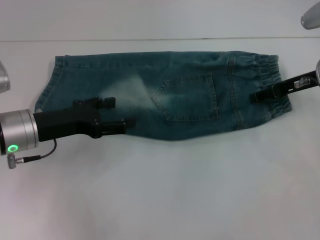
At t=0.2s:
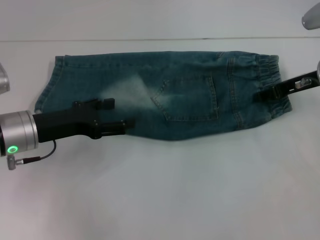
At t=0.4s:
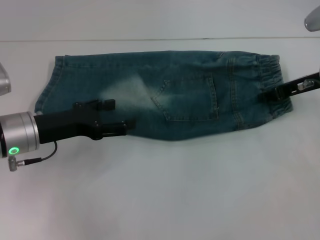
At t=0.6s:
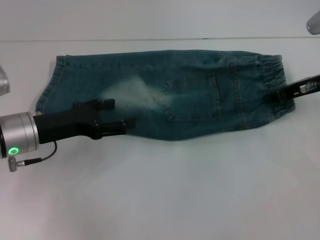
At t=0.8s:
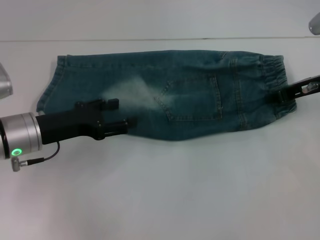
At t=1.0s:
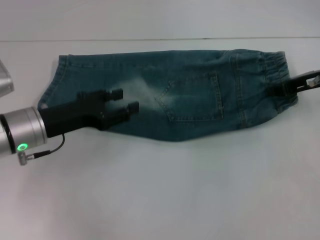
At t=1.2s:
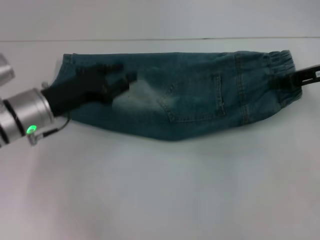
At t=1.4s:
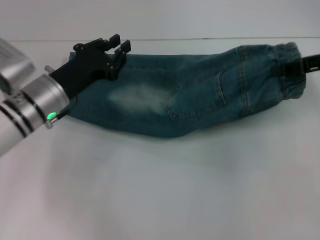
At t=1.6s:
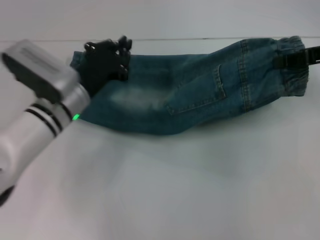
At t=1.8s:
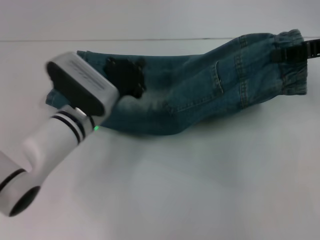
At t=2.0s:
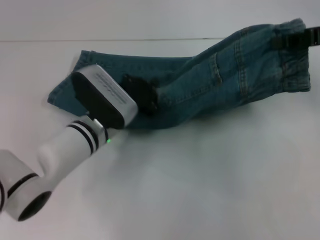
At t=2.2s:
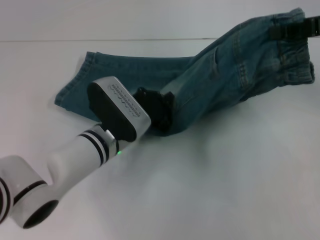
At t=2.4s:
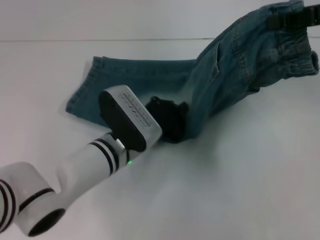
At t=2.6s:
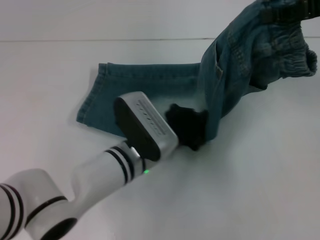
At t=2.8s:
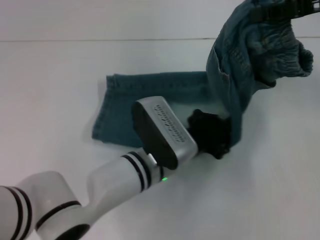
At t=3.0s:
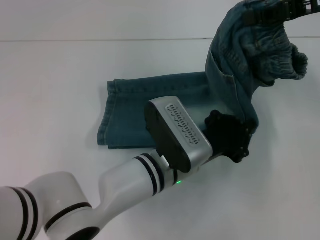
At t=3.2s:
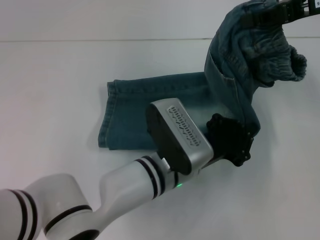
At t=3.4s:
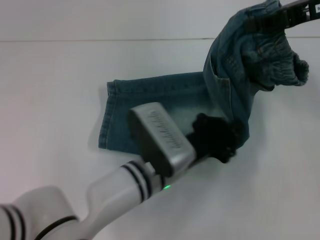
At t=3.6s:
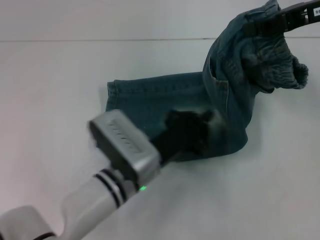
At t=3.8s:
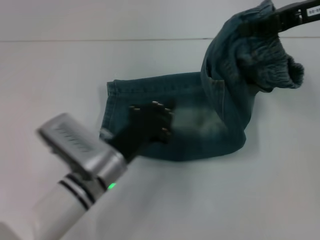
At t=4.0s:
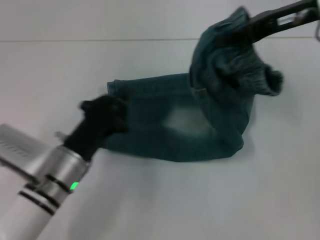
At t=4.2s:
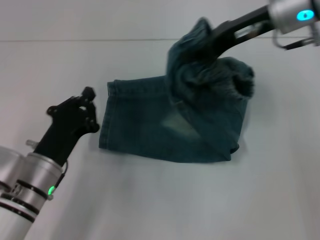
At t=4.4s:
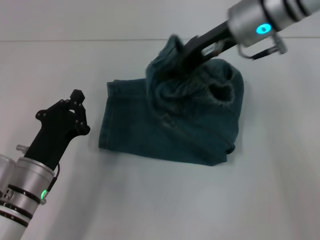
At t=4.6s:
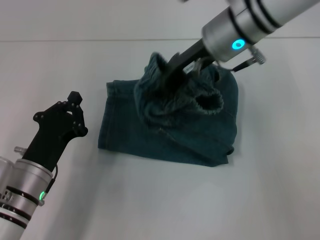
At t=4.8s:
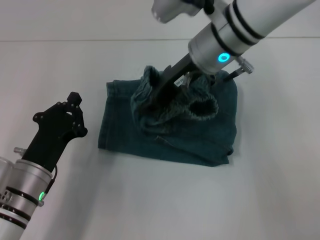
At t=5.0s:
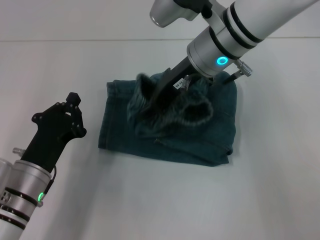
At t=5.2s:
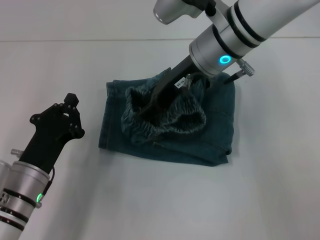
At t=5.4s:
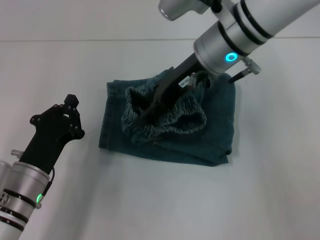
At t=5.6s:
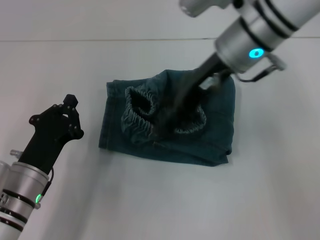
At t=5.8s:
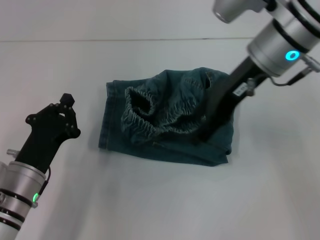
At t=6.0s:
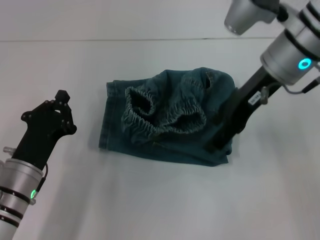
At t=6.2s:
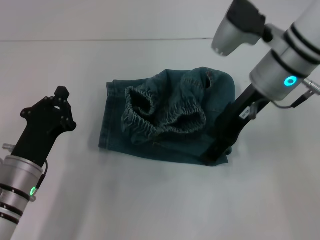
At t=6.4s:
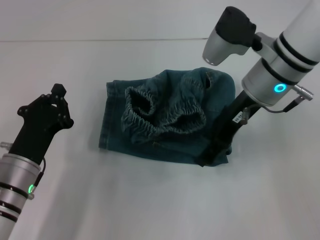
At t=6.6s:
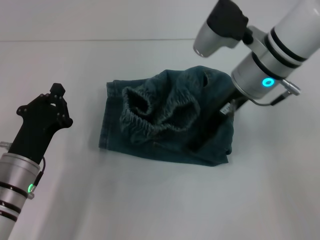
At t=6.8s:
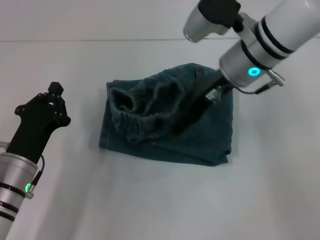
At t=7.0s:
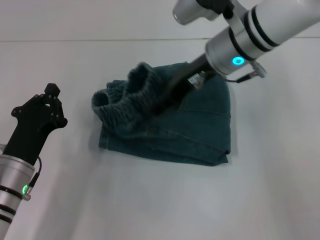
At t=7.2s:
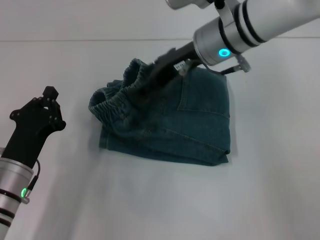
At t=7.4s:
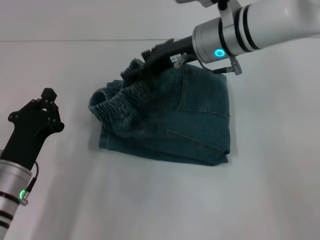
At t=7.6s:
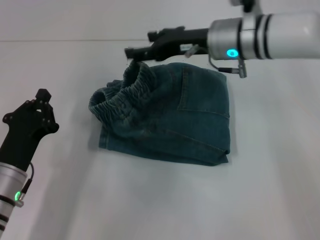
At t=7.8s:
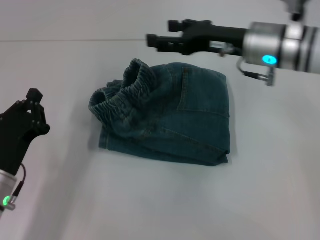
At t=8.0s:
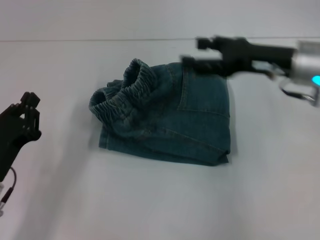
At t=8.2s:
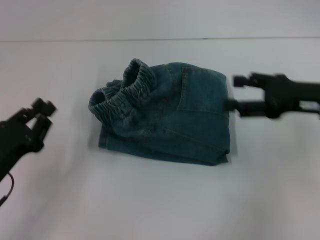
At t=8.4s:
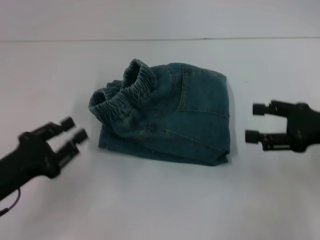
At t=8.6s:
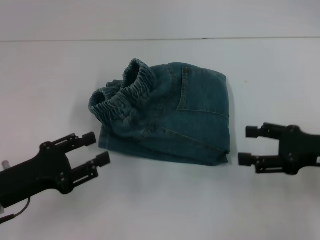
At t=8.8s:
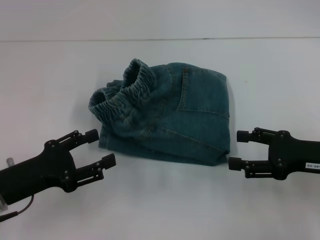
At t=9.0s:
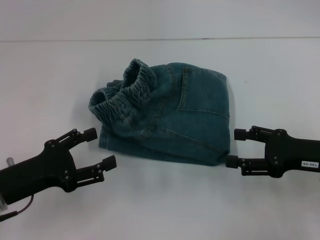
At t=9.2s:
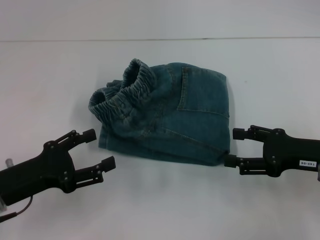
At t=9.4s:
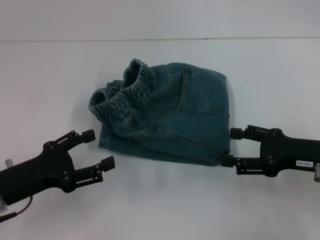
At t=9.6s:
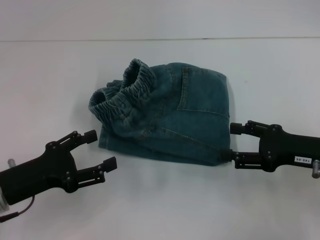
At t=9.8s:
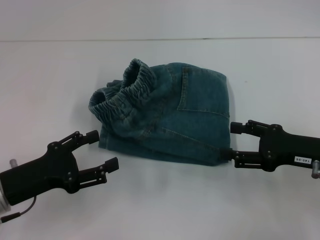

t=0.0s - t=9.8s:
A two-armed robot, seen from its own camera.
Step, t=0.4s - t=3.4s: Press the middle of the pants with your left hand.
Step, t=3.6s - t=5.4s: Fold to the left with your right hand.
Step, t=5.6s - t=7.8s: Adjust the pants with your right hand.
t=0.0s - t=1.4s: The left gripper shifts by some 5 cm, and closes, while the right gripper shifts approximately 5 cm upward, and closes up.
t=1.4s - t=2.8s: The right gripper moves upward, roughly 10 cm. The left gripper heads to the right and backward, covering about 15 cm, and closes its fingers.
t=2.8s - t=4.2s: The left gripper travels to the left by approximately 15 cm, while the right gripper shifts approximately 10 cm to the left.
t=4.2s - t=5.6s: The right gripper travels to the left by some 5 cm, and opens.
t=7.0s - t=8.4s: The right gripper is displaced to the right and backward by about 25 cm; the left gripper travels to the left by approximately 5 cm.
t=8.4s - t=9.8s: The right gripper shifts by about 5 cm, while the left gripper opens its fingers.
